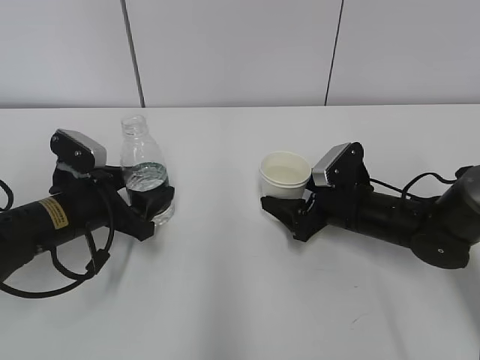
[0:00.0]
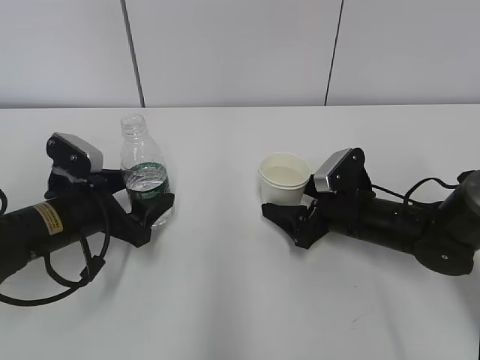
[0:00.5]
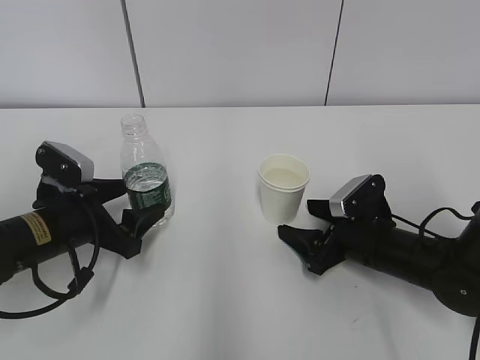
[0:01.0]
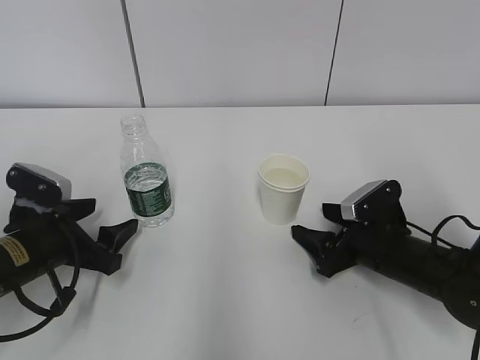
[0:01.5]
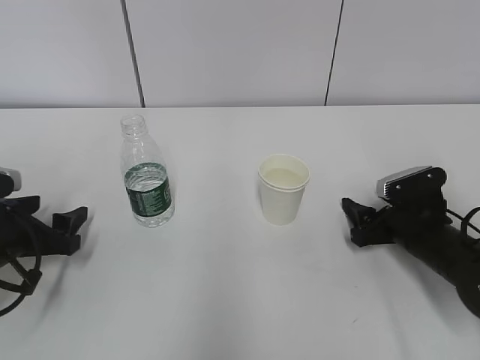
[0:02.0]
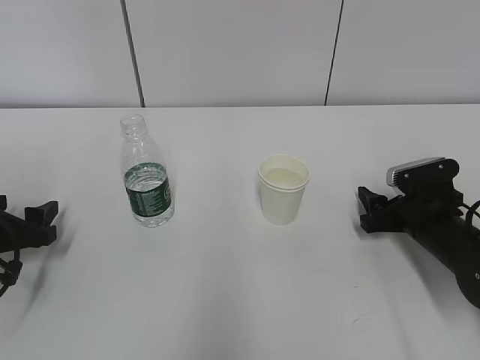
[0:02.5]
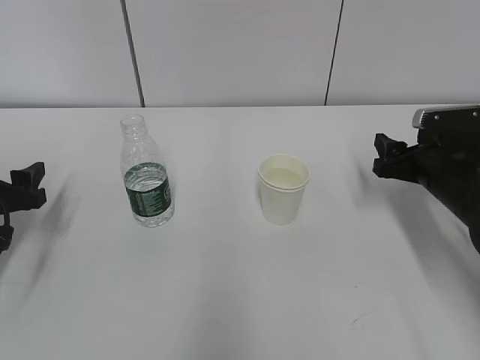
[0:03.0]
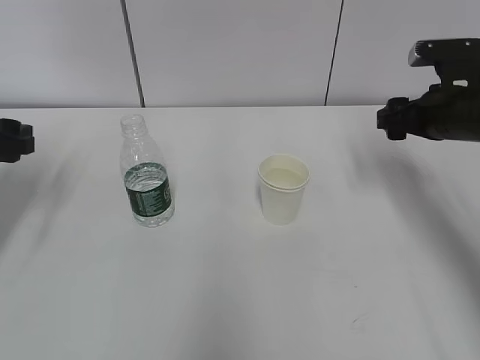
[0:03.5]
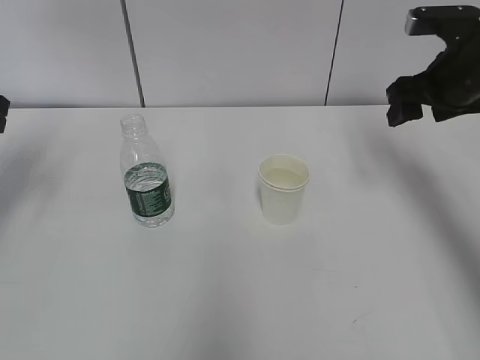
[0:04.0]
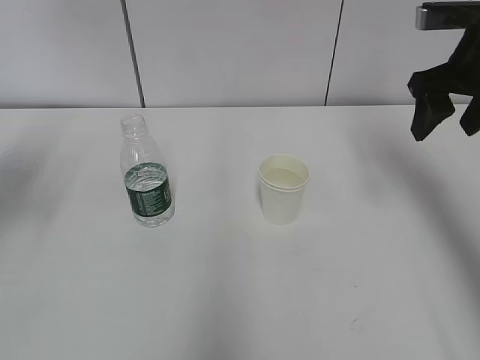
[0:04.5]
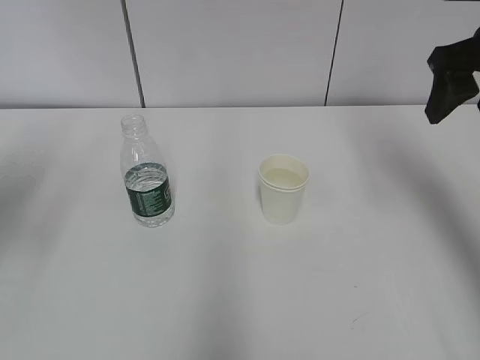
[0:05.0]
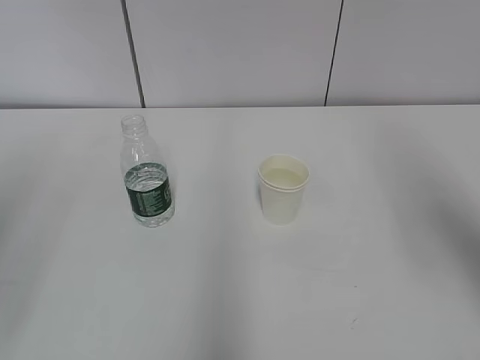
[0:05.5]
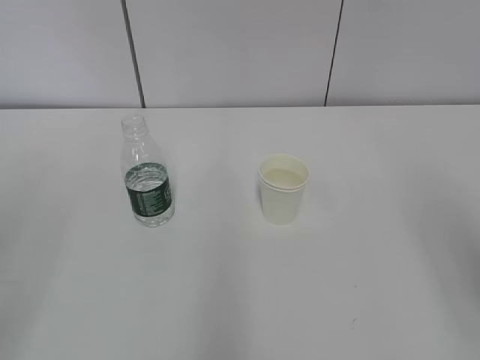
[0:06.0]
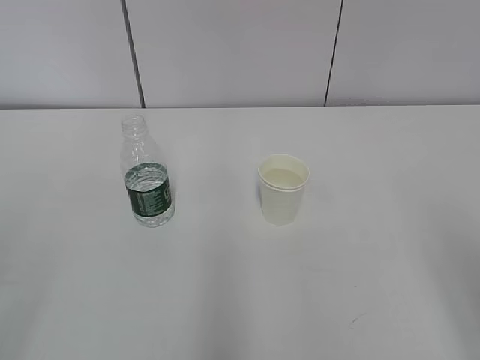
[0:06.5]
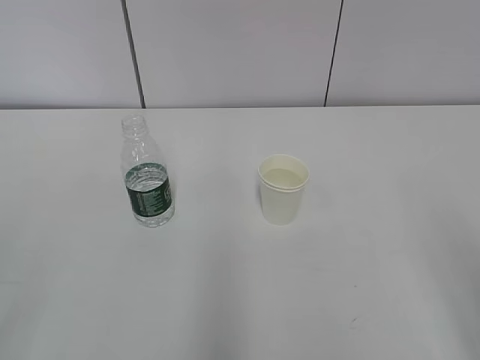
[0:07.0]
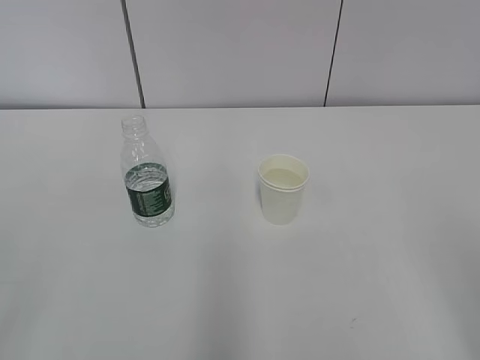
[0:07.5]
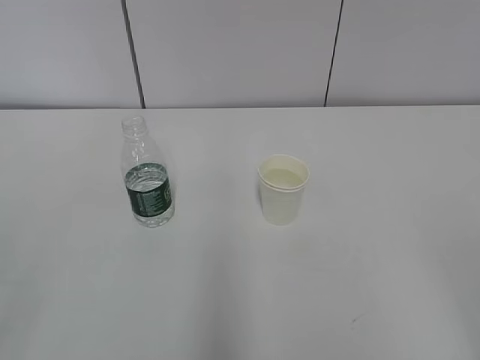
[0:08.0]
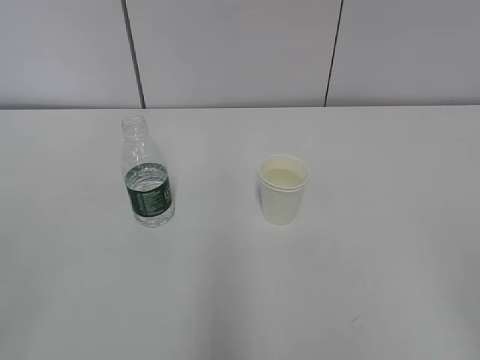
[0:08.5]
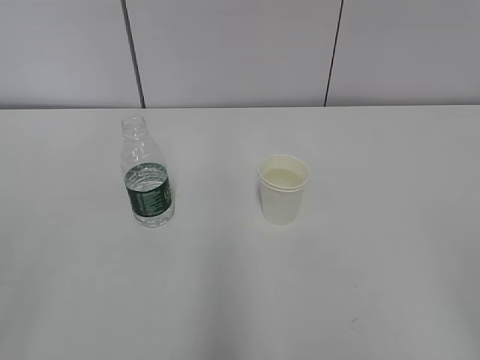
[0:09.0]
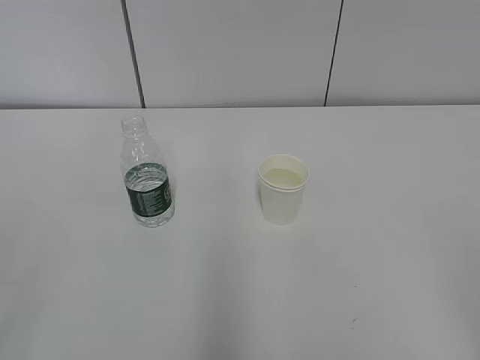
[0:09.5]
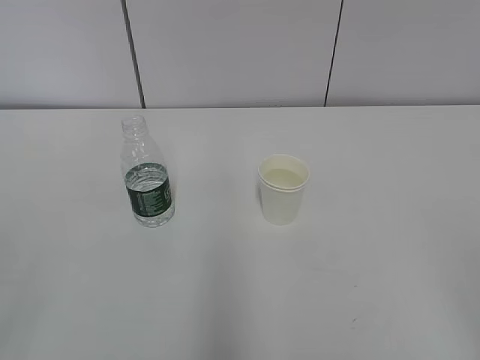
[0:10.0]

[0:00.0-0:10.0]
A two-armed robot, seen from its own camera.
0:00.0 to 0:02.0: The right gripper moves to the right, about 10 cm, and closes its fingers. The left gripper shifts about 10 cm to the left.
0:02.0 to 0:04.0: The grippers both shift upward by roughly 20 cm.
0:04.0 to 0:06.0: Both grippers travel together backward, some 30 cm.
